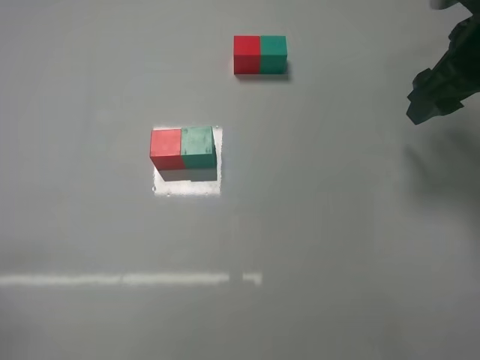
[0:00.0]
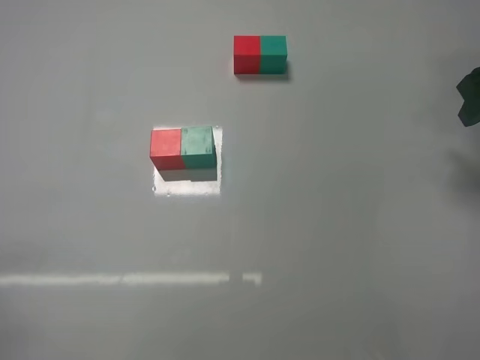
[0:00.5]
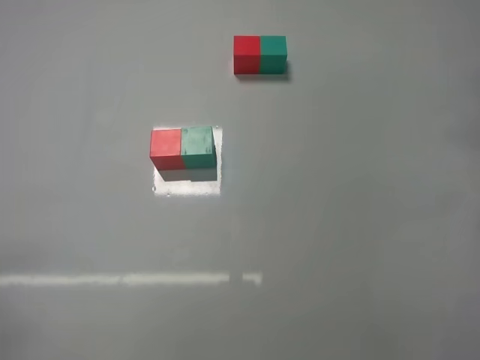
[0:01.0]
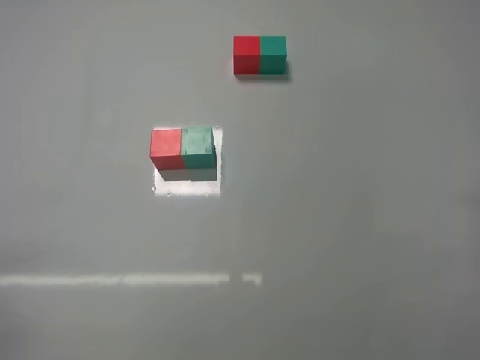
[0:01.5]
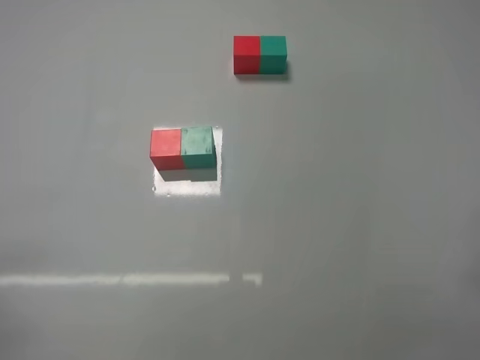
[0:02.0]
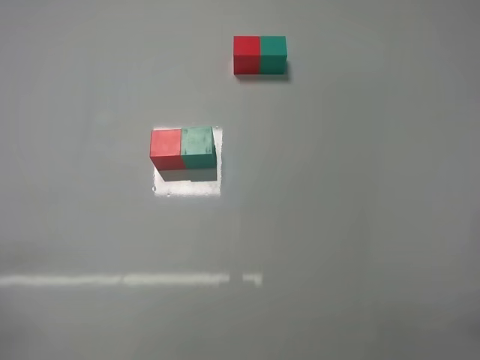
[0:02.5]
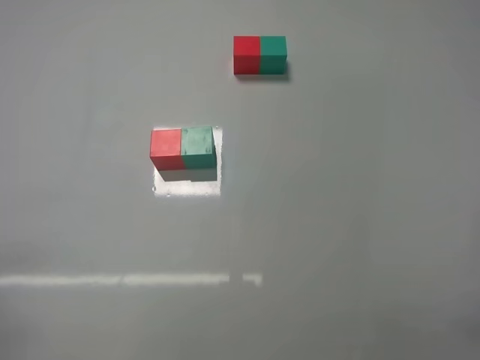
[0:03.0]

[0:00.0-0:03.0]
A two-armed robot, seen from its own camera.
Task of the whole recording: According to the building block template in front, assemble the scattered blocks together.
0:00.0 to 0:01.5: The right gripper goes roughly 20 cm backward.

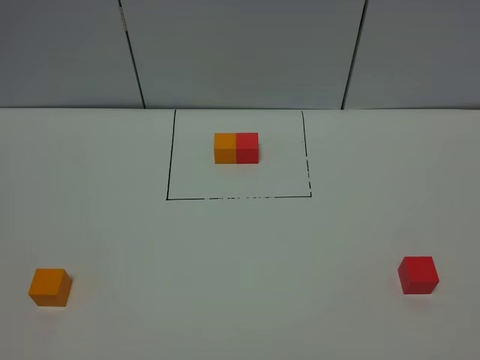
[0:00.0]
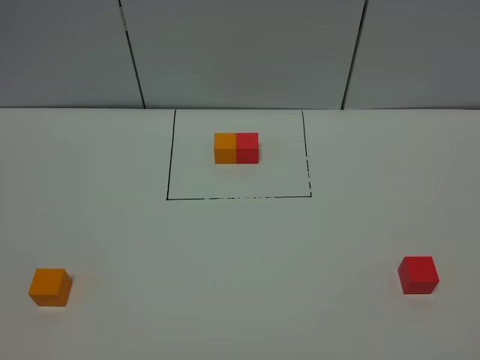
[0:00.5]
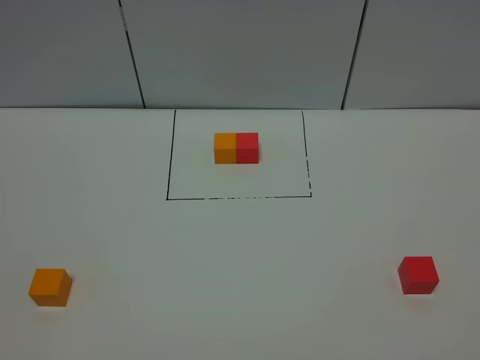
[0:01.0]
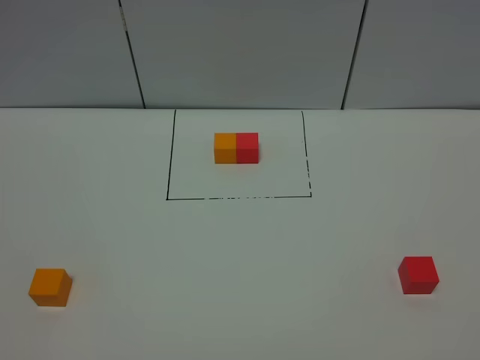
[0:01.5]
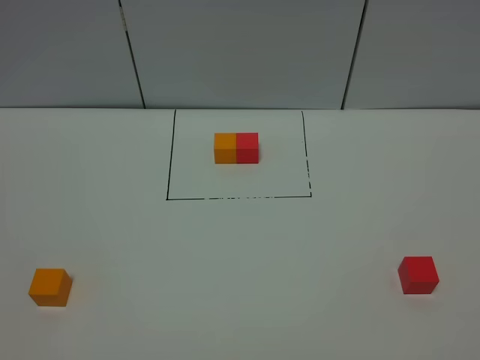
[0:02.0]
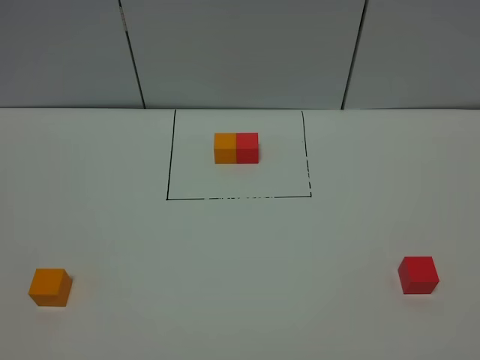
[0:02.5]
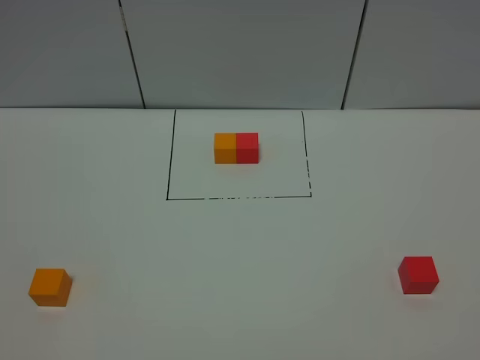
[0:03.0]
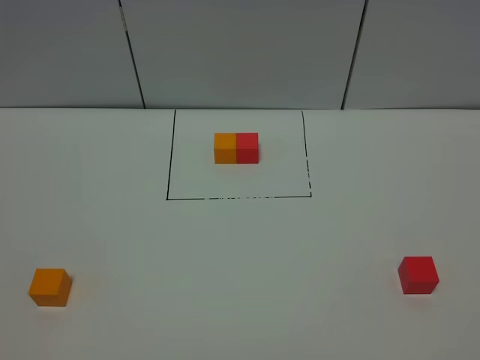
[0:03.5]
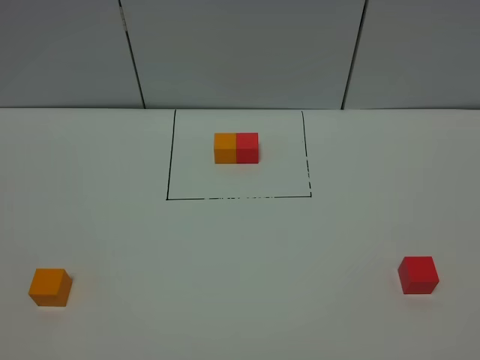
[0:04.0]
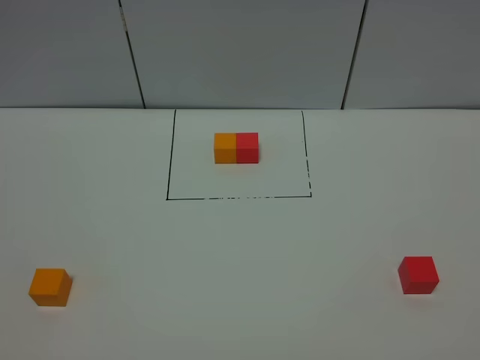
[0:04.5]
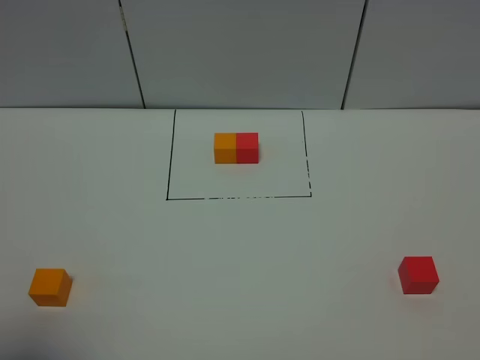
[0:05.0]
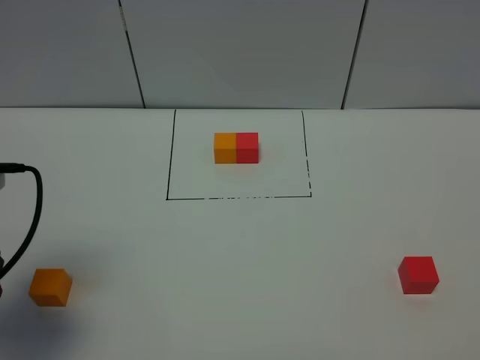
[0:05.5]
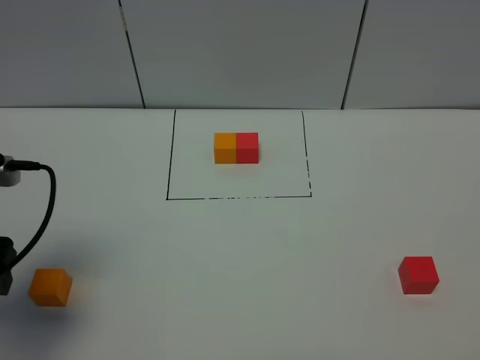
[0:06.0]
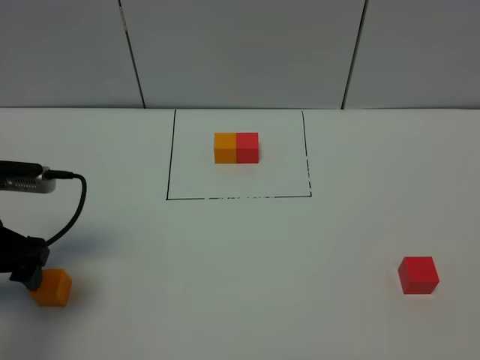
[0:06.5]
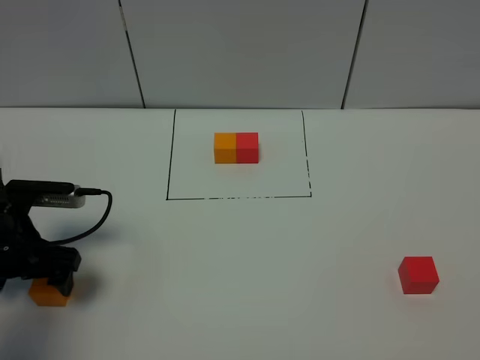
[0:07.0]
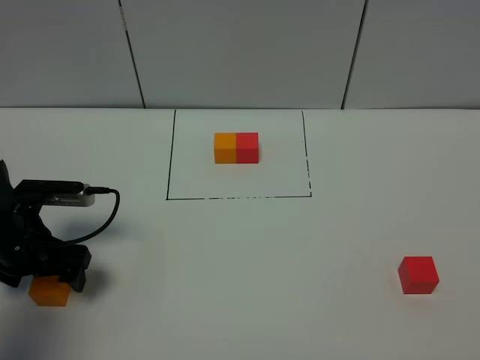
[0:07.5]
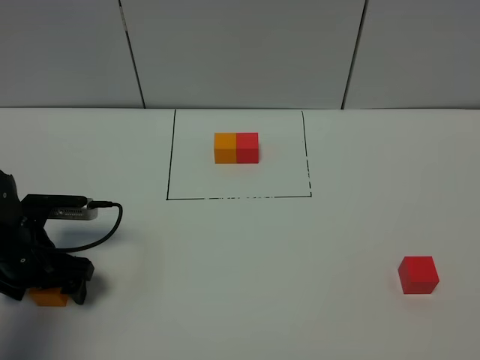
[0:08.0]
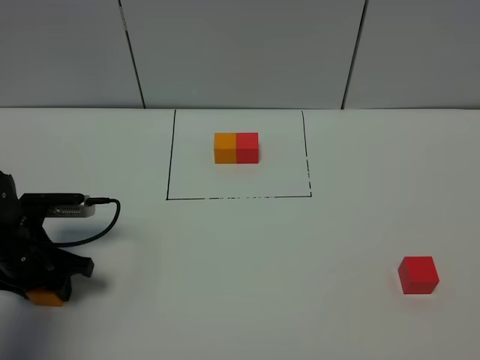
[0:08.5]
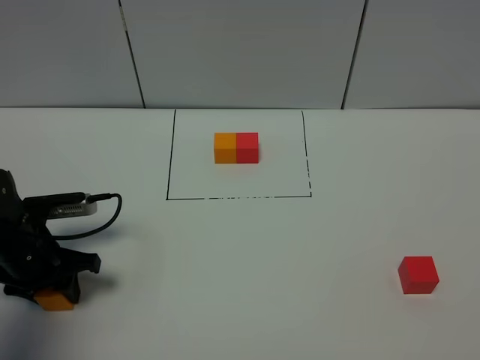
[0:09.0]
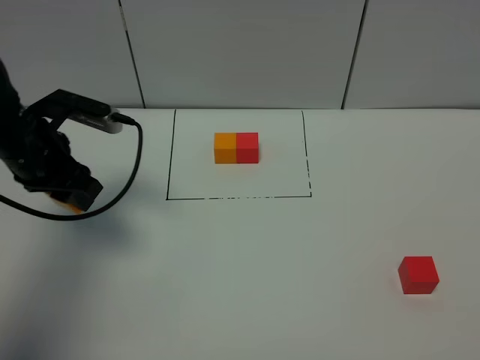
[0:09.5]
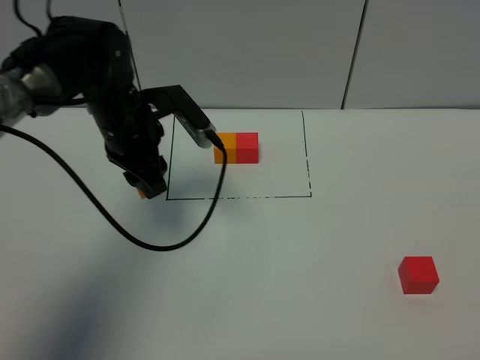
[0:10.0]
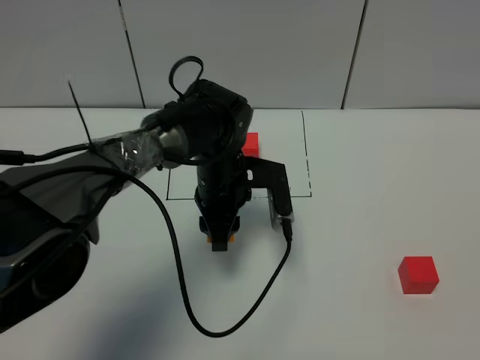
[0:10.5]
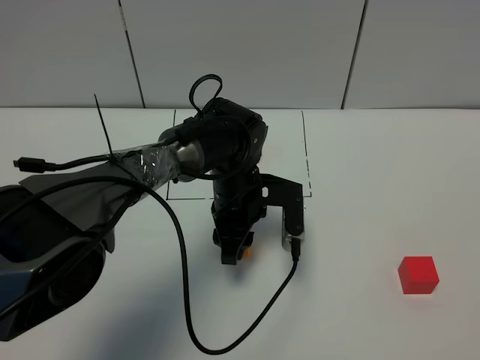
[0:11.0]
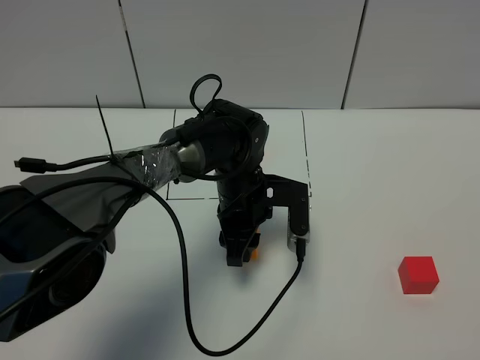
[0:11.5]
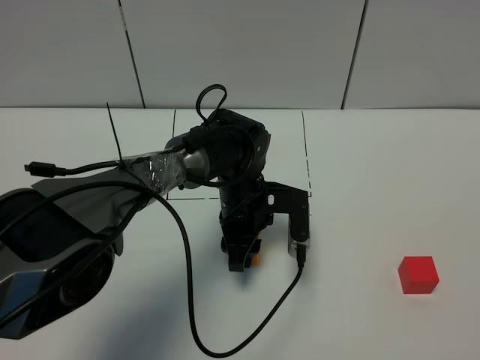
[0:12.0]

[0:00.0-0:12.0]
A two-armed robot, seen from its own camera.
Task of the whole recording: According to the building block template in front, assemble the scattered blocks together.
0:00.0 to 0:02.0: Both grippers stay about where they are.
0:04.0 to 0:06.0: The left gripper is displaced forward by roughly 25 cm.
0:06.0 to 0:08.0: The left gripper heads downward and forward, covering roughly 15 cm.
0:08.0 to 0:10.0: The left gripper travels to the right, forward and upward by some 20 cm, and closes up.
0:10.0 to 0:12.0: The left gripper moves to the right and downward, approximately 15 cm.

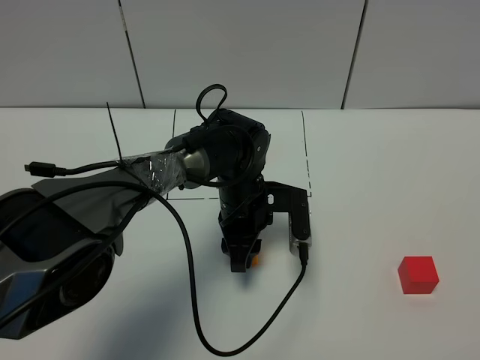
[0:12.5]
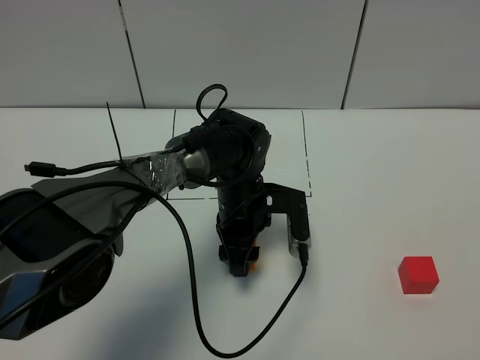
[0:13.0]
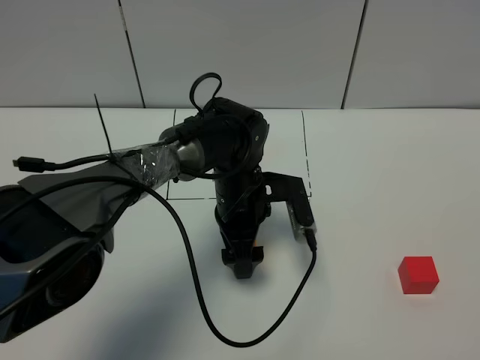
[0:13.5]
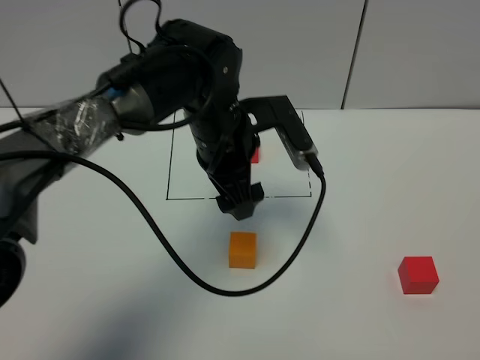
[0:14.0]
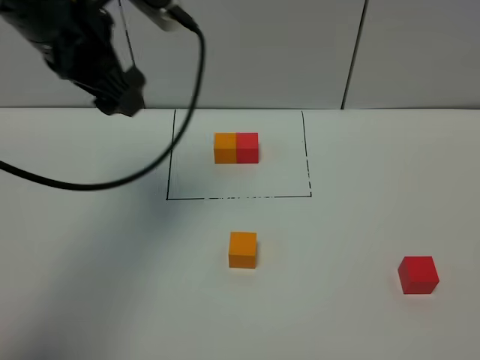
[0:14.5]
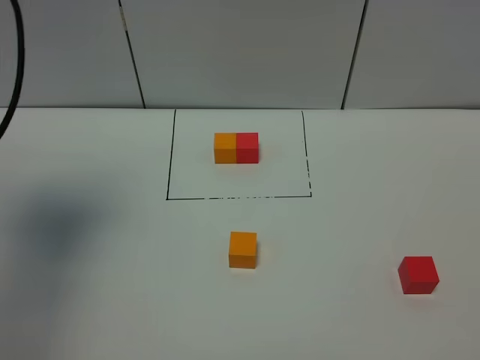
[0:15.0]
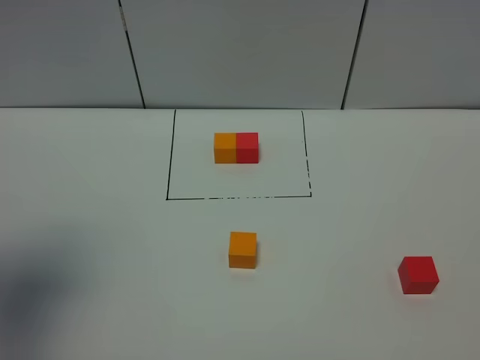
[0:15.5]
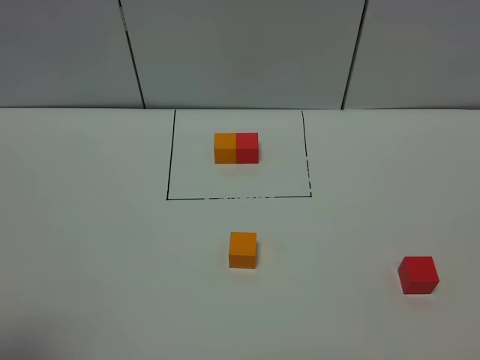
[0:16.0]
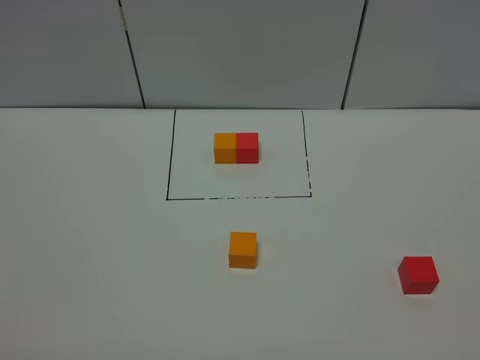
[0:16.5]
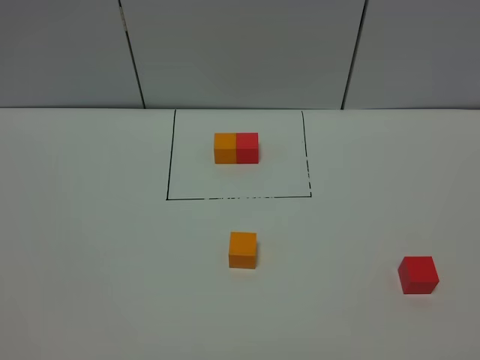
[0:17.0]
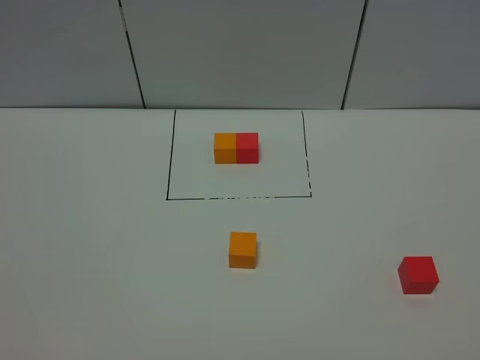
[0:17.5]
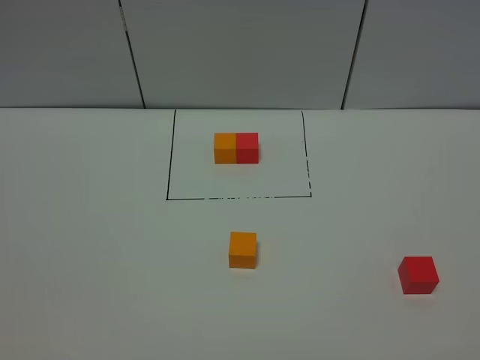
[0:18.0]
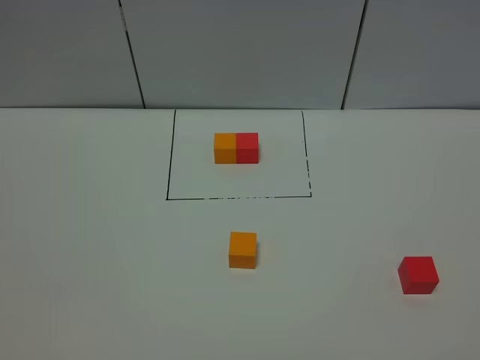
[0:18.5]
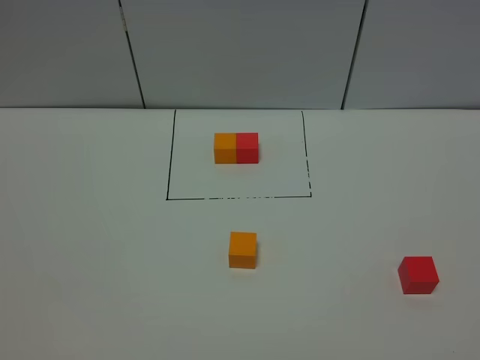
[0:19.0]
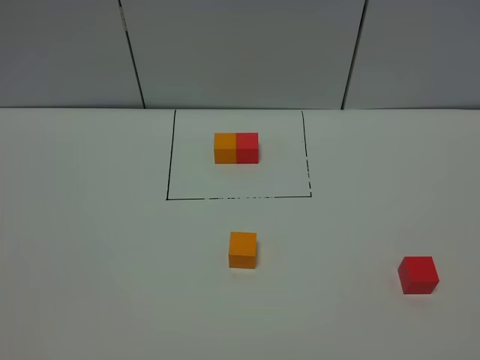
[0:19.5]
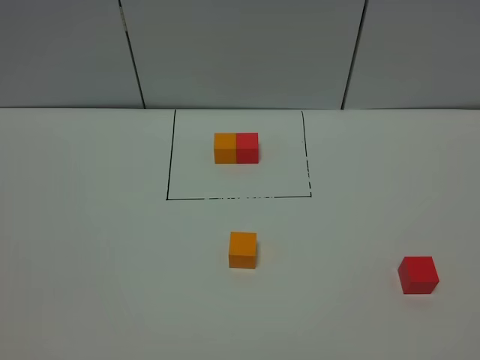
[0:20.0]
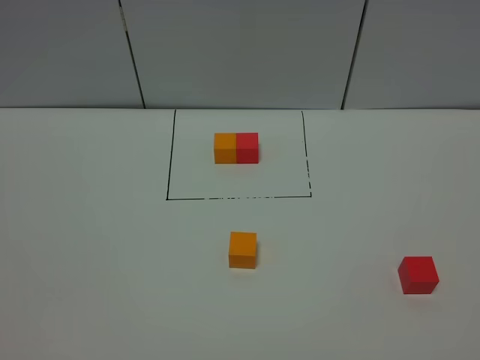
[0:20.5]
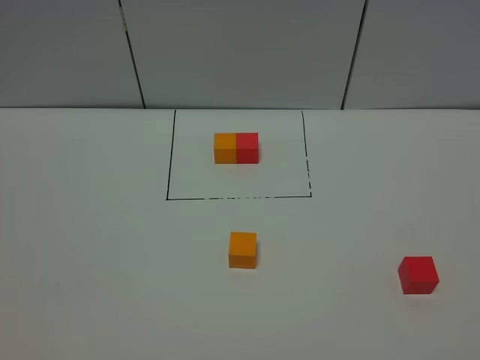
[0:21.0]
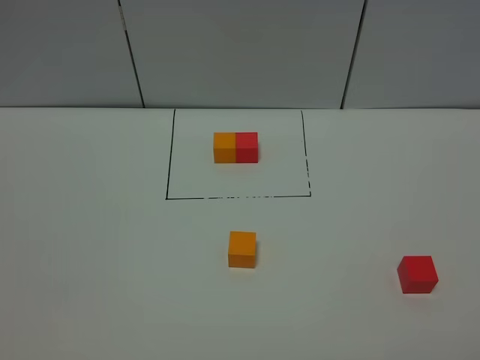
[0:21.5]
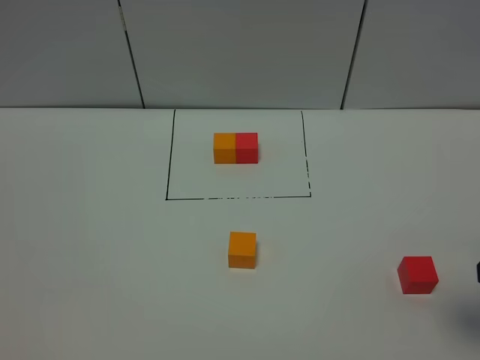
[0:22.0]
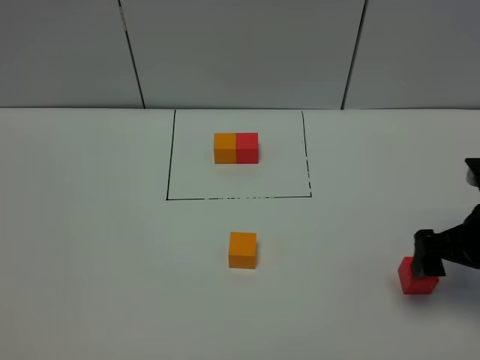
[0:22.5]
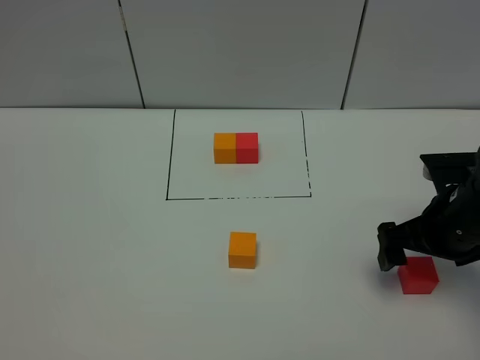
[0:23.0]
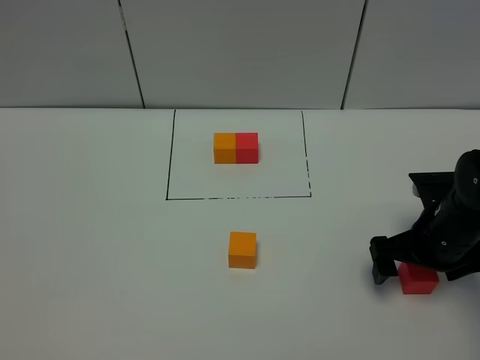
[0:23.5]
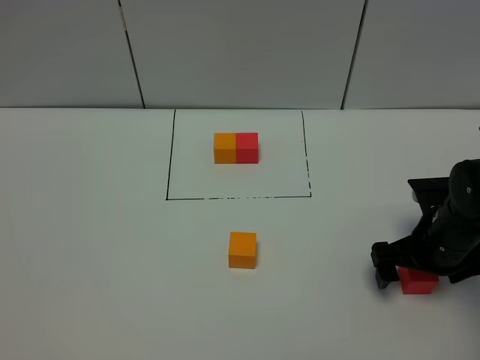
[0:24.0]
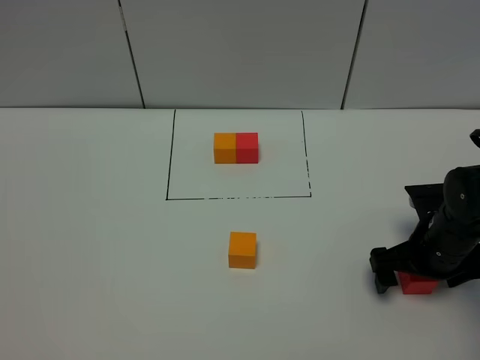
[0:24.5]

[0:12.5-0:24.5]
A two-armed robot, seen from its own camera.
Task of the whole recording: According to the building block template in front, assemble the scattered blocks together.
0:12.5 to 0:14.5: The left gripper moves upward and to the left, approximately 35 cm, and opens.
0:14.5 to 0:16.5: The left gripper goes roughly 35 cm backward.
0:18.5 to 0:20.5: The two grippers keep their place.
0:20.5 to 0:22.5: The right gripper heads forward, covering some 25 cm, and opens.
0:22.5 to 0:24.5: The right gripper moves downward, about 10 cm.
